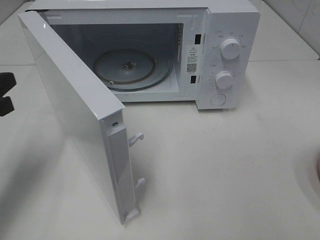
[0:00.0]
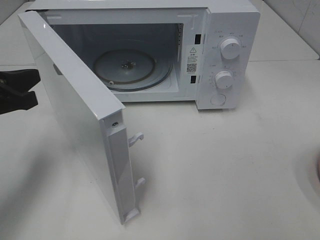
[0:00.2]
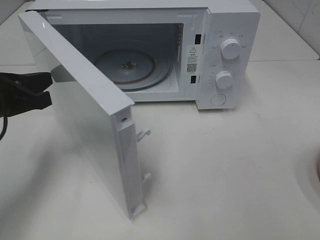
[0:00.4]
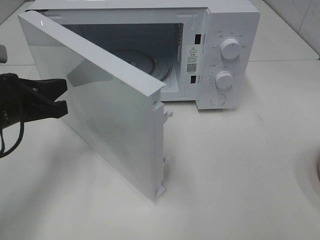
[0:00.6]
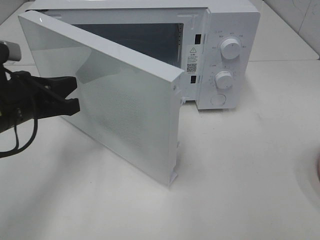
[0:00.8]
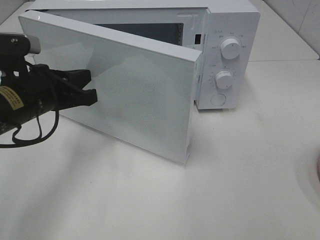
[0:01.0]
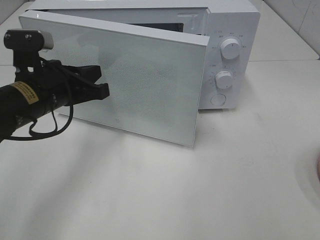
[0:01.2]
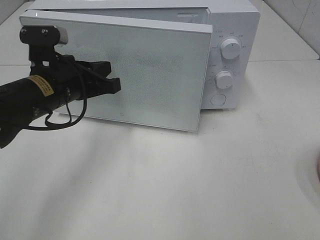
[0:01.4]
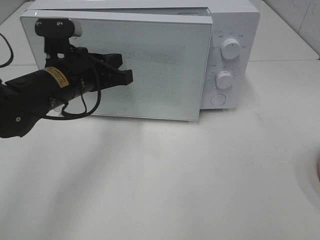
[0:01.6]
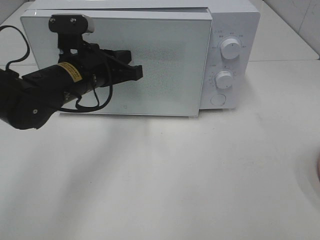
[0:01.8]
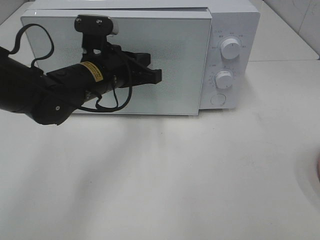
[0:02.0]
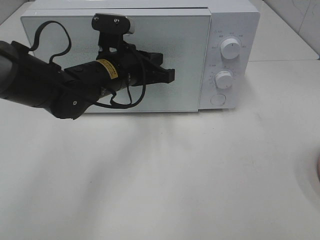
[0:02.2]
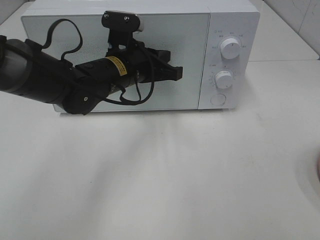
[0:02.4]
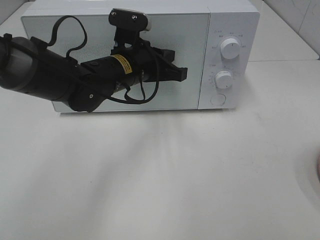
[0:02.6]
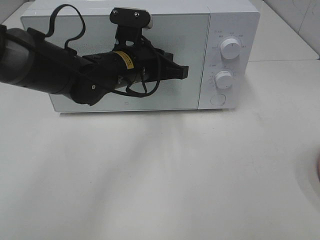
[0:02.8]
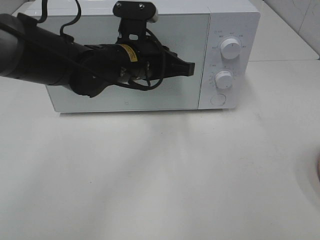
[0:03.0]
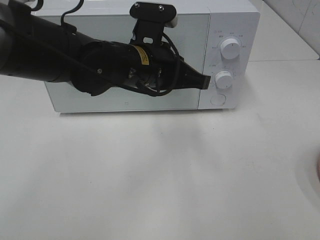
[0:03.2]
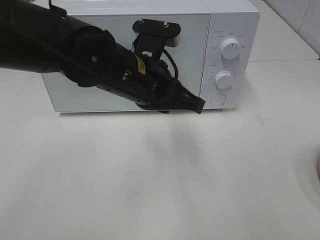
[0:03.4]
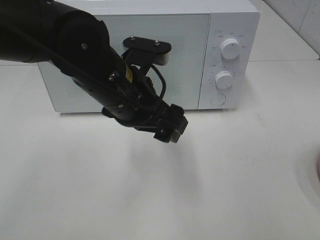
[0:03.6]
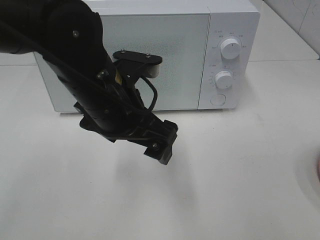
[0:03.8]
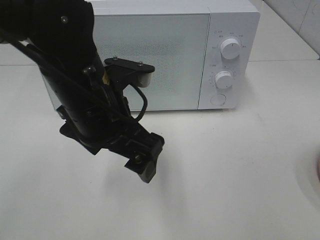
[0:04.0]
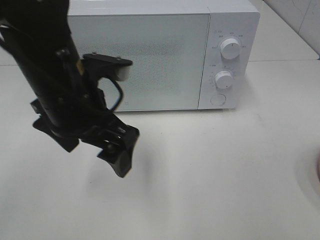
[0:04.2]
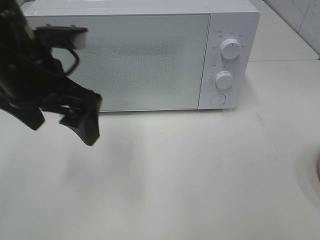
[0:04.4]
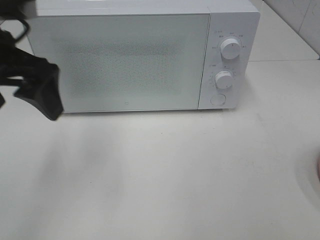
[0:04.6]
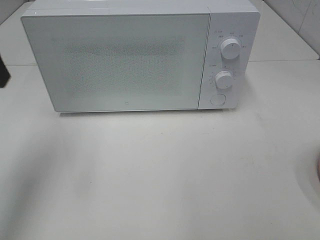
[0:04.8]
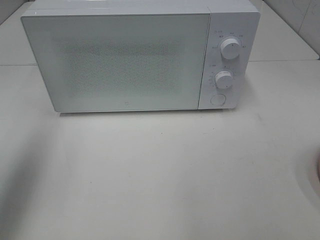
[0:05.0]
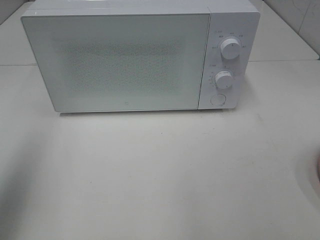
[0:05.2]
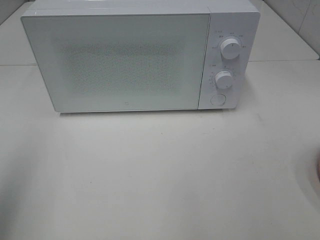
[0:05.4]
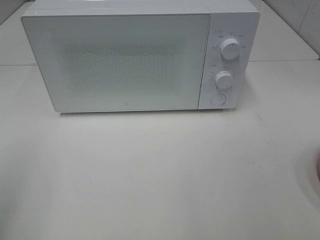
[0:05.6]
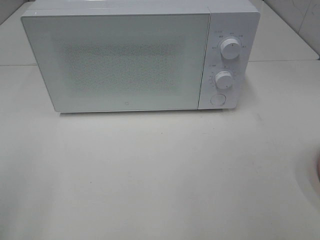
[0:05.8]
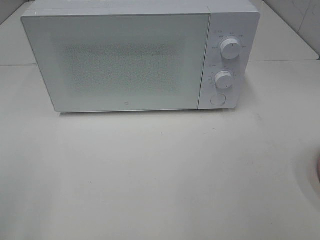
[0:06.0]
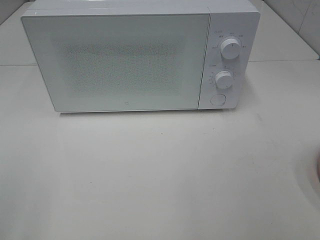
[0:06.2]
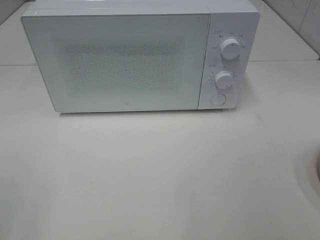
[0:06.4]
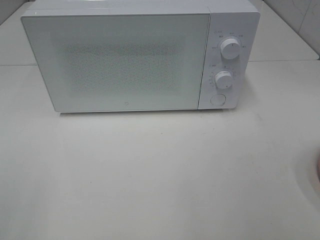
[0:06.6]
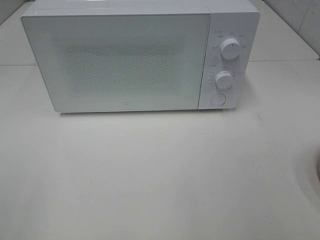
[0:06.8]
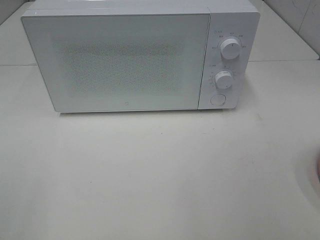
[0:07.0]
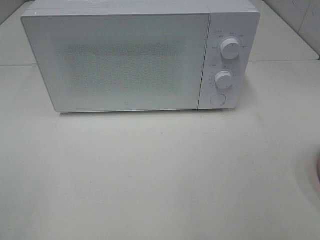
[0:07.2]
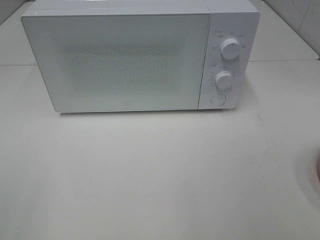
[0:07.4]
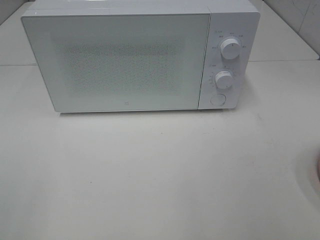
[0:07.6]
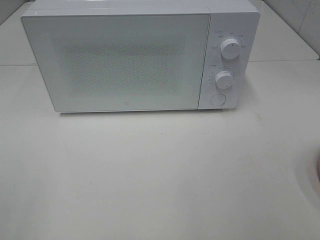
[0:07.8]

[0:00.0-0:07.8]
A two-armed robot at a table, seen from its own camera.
Task of the whole recording: Heat the burger.
Step, 0.0 to 2.8 s: Left hand: close the microwave door.
0.0 to 1.6 s: The left gripper travels to the right and forward by about 15 cm.
1.6 to 3.2 s: The left gripper is displaced to the right by some 10 cm.
3.2 to 4.6 s: The left gripper is displaced to the left and upward by approximately 20 cm, and opens its fingers.
4.6 to 6.2 s: The left gripper goes roughly 25 cm backward and to the left.

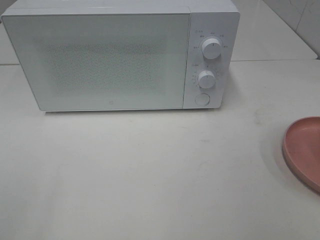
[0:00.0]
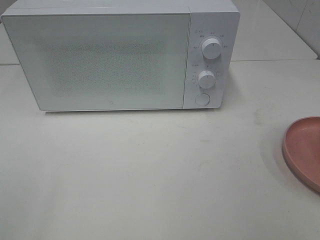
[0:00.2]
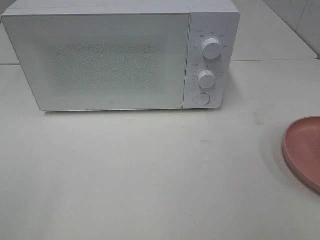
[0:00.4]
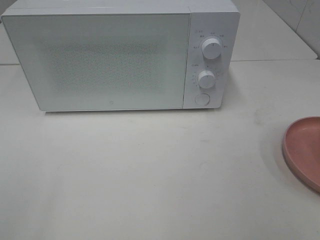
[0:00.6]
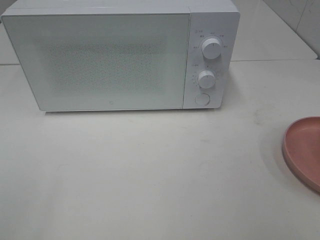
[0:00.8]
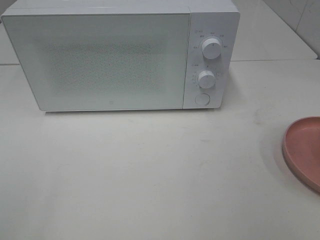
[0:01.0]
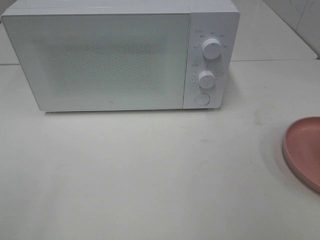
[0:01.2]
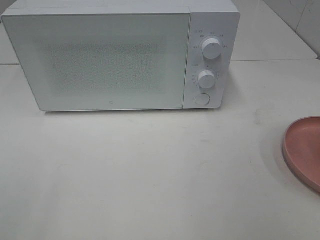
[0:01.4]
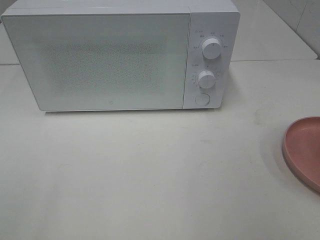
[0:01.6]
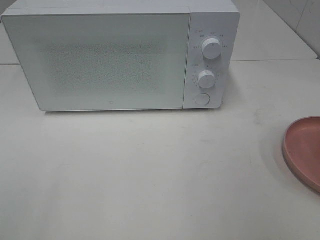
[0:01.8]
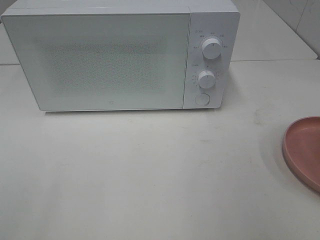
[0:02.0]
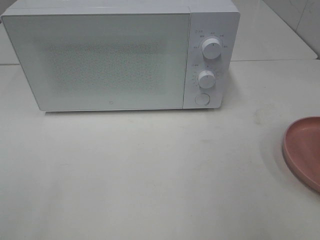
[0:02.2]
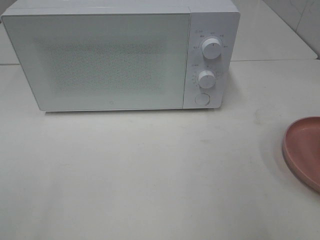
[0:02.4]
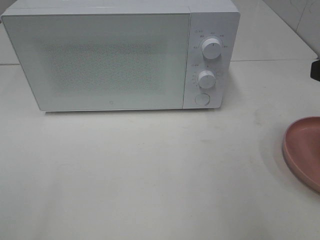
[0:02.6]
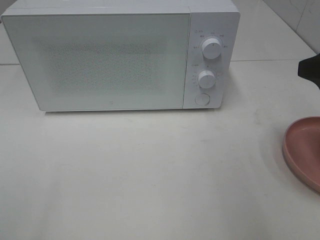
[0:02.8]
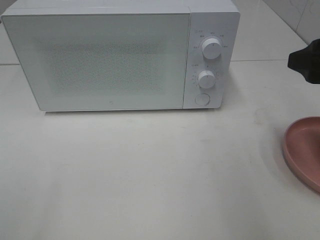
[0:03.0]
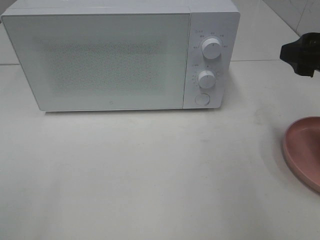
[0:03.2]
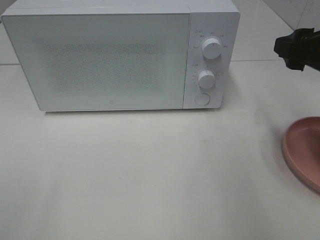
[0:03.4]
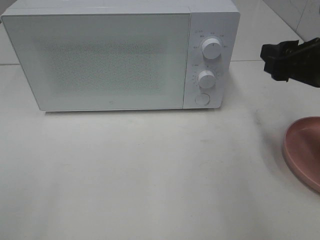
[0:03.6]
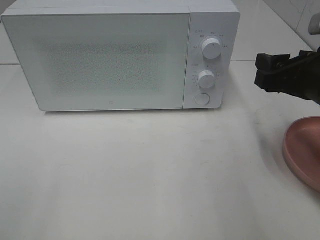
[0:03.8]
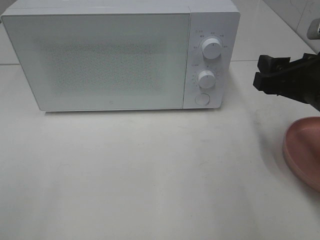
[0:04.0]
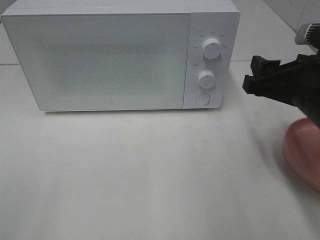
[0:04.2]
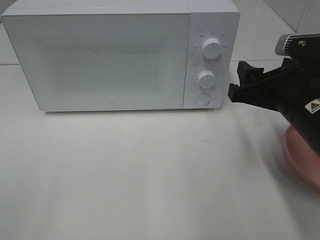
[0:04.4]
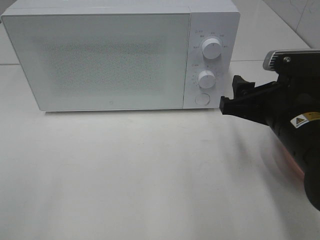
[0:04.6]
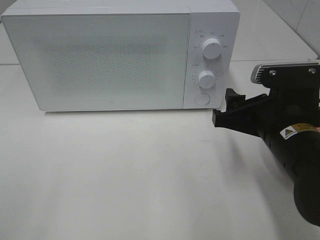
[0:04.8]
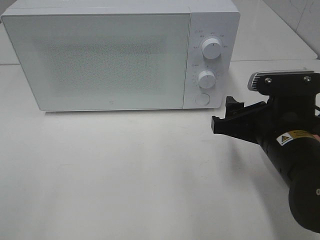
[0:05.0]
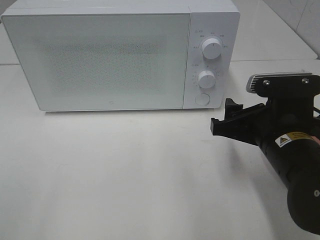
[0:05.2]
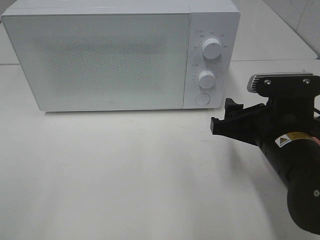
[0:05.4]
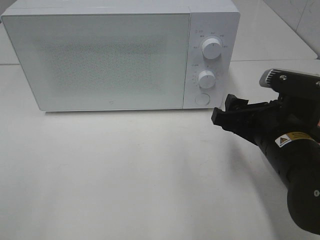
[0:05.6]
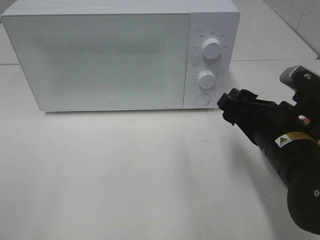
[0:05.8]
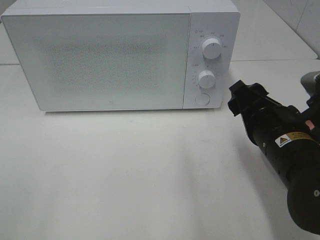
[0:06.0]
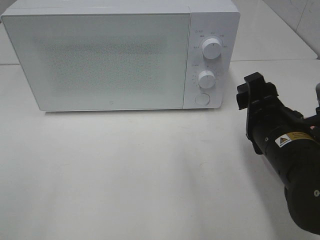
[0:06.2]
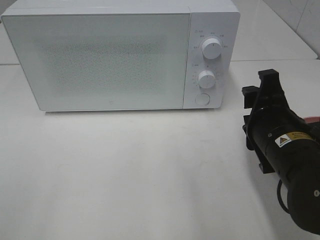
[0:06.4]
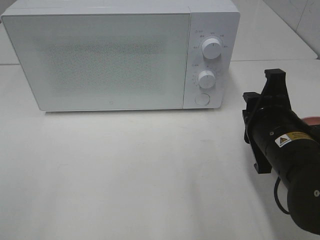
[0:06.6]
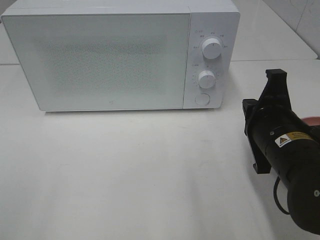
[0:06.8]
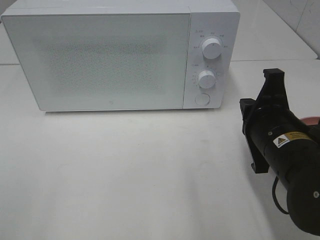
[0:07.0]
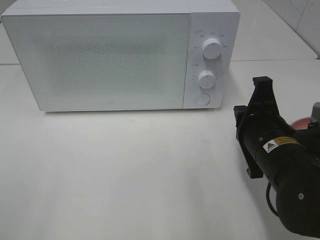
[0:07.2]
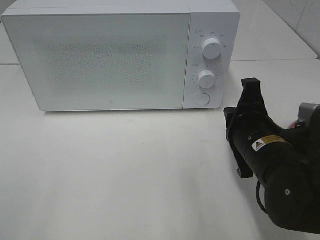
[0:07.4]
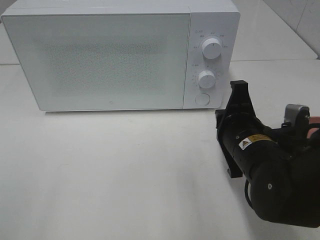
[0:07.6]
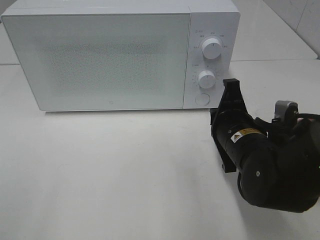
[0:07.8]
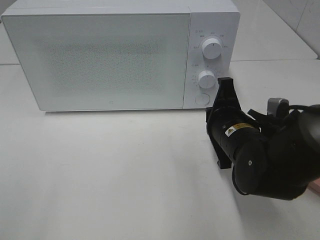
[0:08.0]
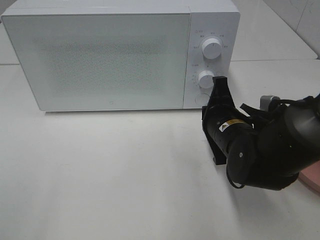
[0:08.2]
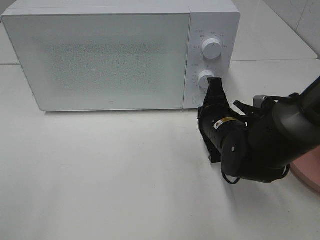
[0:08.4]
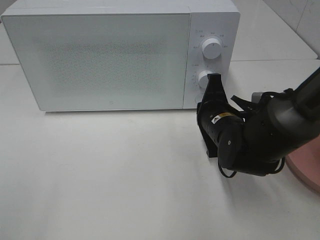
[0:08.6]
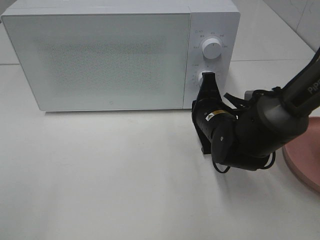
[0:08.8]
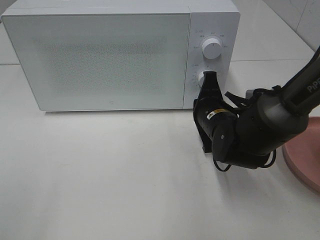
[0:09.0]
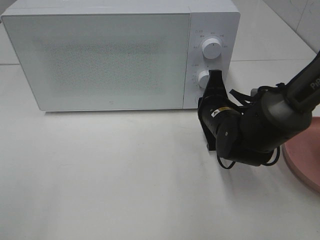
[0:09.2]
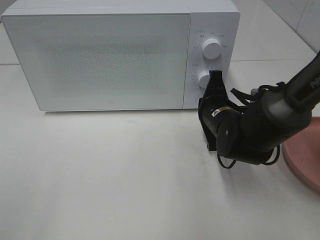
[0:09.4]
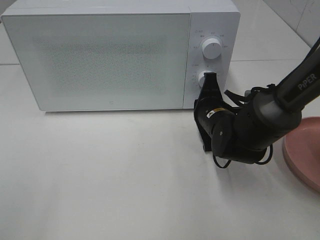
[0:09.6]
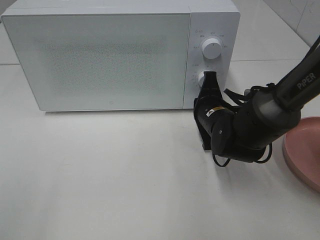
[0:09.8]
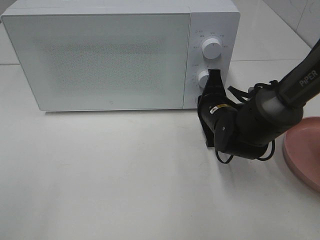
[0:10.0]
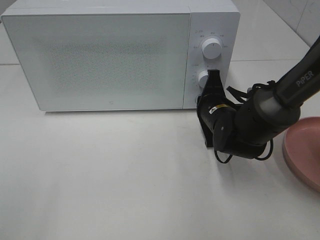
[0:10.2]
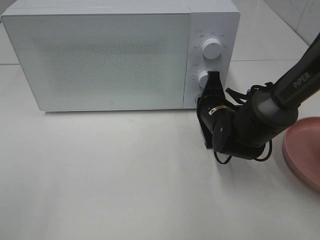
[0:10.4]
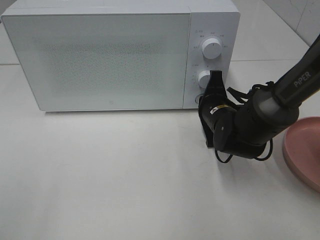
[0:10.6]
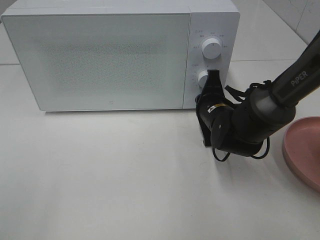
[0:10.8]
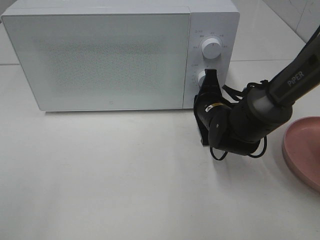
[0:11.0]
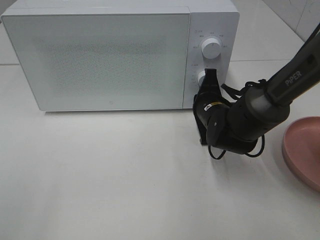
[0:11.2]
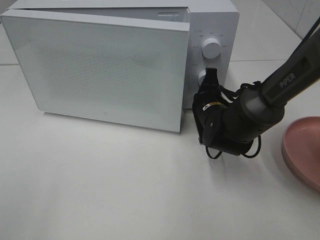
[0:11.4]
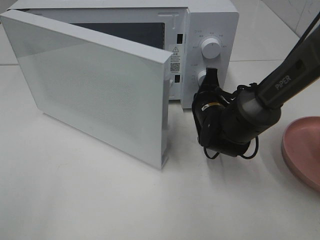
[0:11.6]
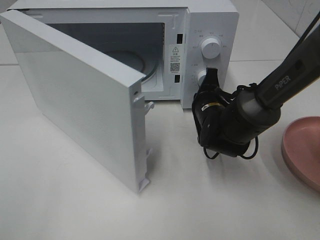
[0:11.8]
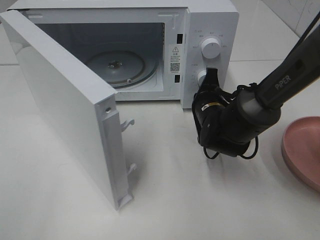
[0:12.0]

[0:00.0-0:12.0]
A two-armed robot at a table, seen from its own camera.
Task of the whole recording: Heat the burger.
1.6 to 3.0 s: The right gripper heads forward, covering approximately 15 cm.
3.0 to 4.4 s: The right gripper moves downward and to the left, about 10 cm.
6.0 to 7.6 s: The right gripper closes up.
7.6 to 9.0 s: The right gripper moves forward, some 10 cm.
9.0 to 10.4 s: There are only small adjustments of the grippers.

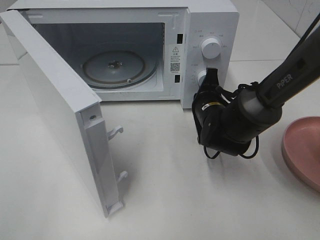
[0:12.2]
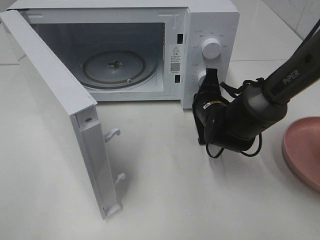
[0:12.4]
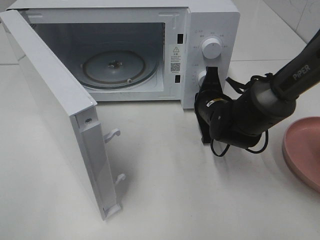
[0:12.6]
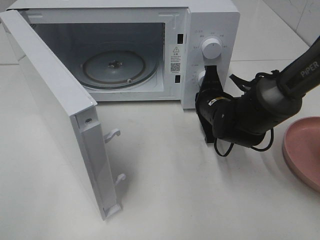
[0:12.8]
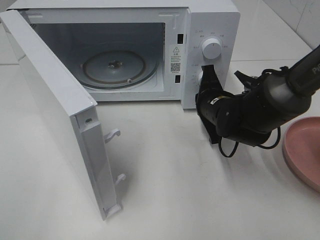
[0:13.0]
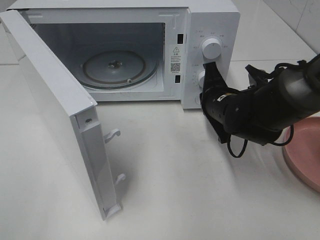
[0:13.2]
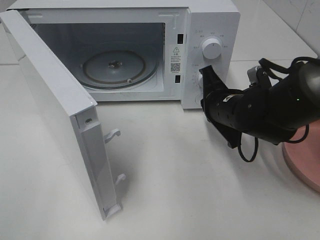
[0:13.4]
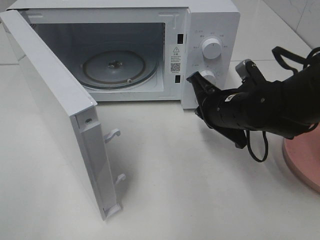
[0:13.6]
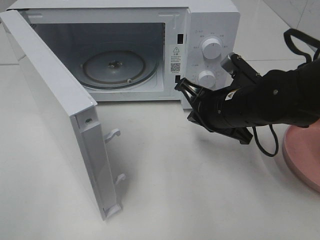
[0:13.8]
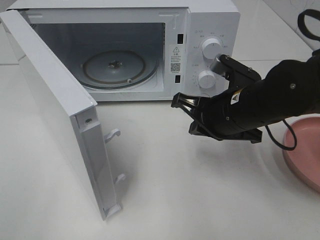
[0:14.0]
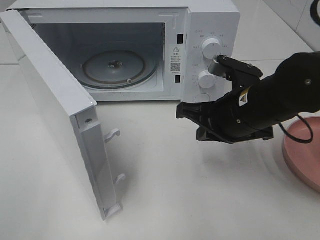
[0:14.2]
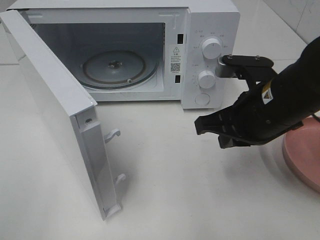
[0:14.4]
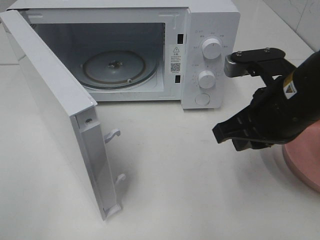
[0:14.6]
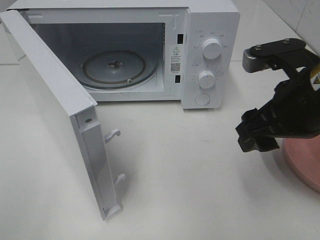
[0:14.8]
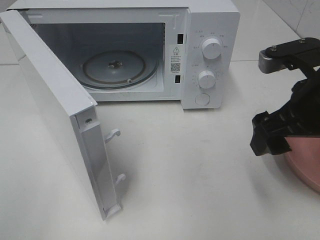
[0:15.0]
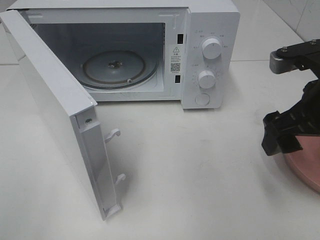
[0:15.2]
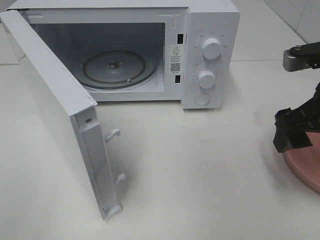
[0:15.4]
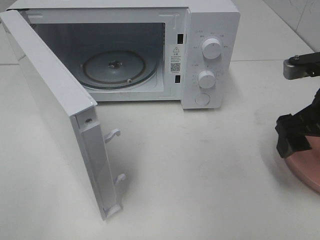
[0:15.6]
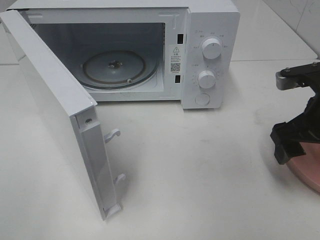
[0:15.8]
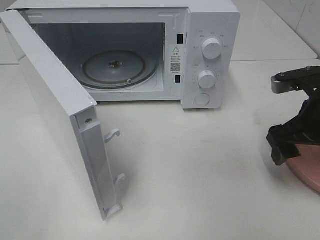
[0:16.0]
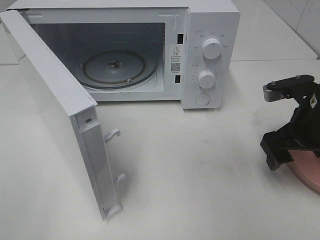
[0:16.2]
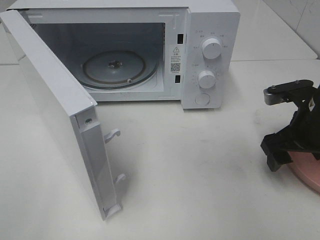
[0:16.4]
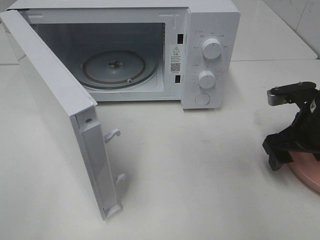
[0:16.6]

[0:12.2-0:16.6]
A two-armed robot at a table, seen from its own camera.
Task of the whole recording: Heat the burger.
12.2 to 13.6 s: The right gripper shifts some 10 cm upward and backward.
13.6 to 15.2 s: The right gripper heads upward, to the right and backward, covering about 15 cm, and opens up.
15.2 to 16.6 s: The right gripper goes about 10 cm downward and forward.
